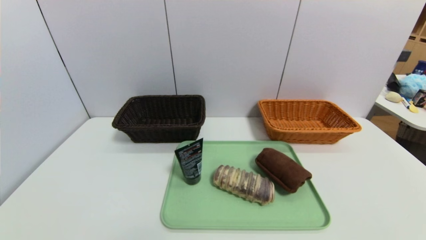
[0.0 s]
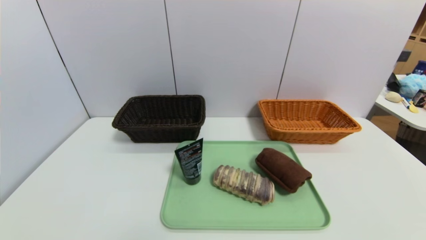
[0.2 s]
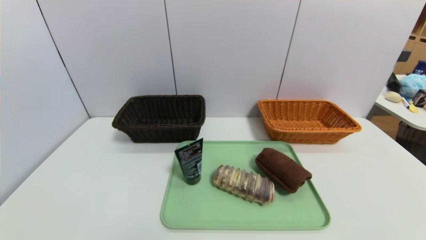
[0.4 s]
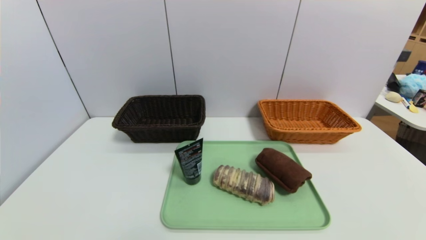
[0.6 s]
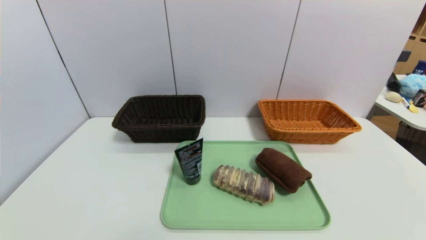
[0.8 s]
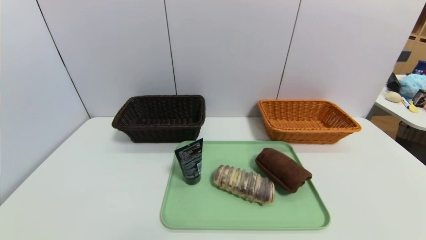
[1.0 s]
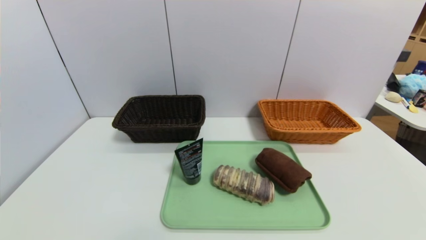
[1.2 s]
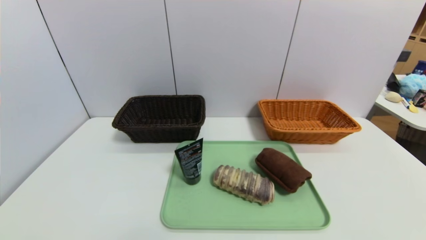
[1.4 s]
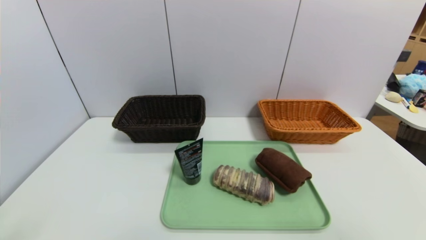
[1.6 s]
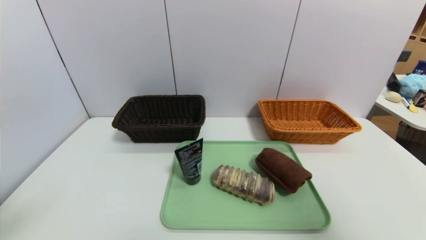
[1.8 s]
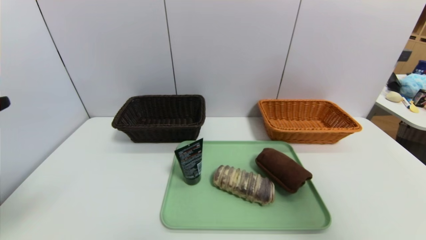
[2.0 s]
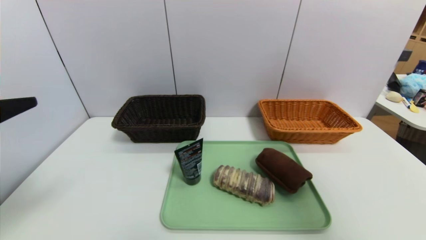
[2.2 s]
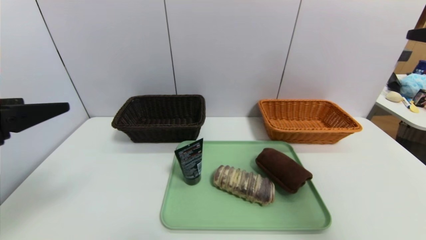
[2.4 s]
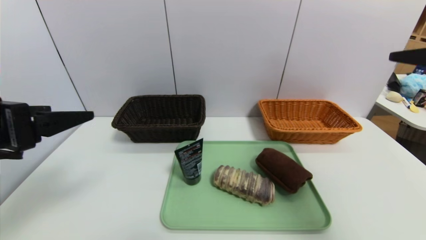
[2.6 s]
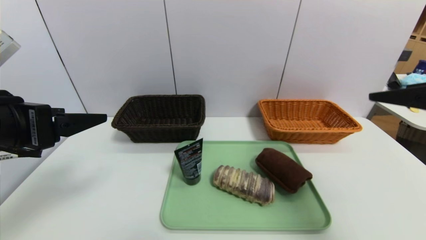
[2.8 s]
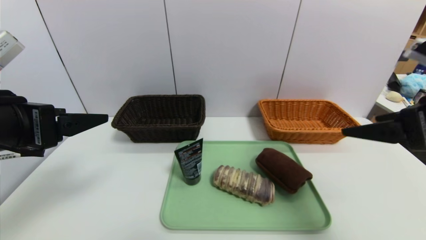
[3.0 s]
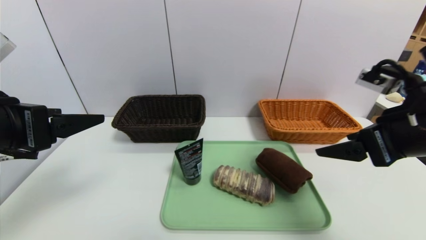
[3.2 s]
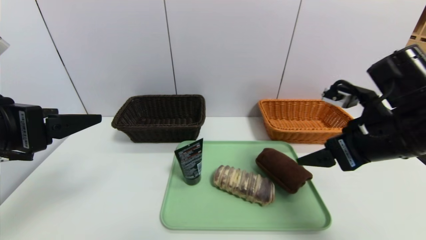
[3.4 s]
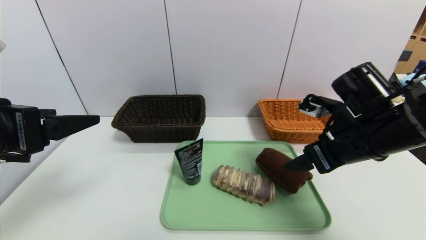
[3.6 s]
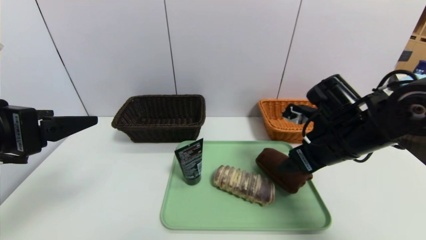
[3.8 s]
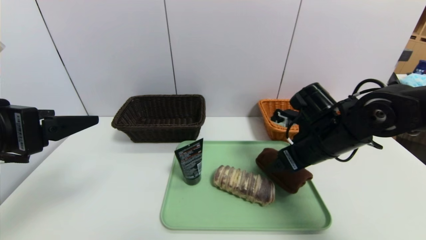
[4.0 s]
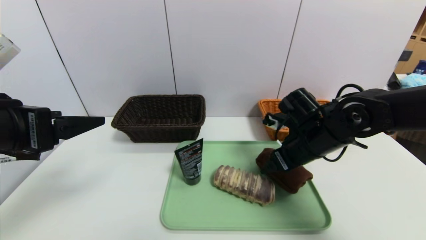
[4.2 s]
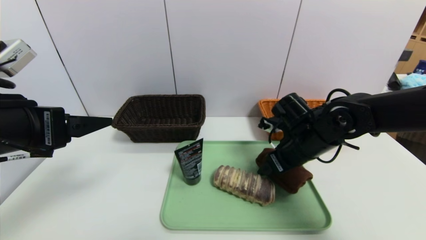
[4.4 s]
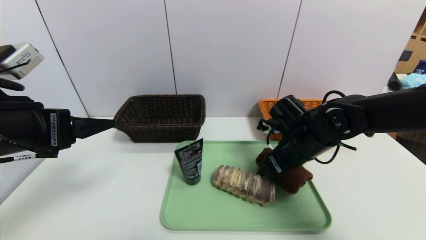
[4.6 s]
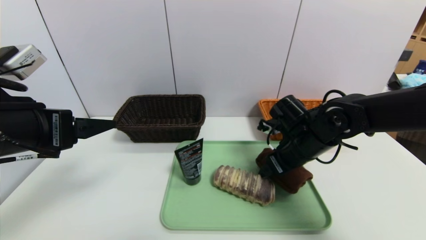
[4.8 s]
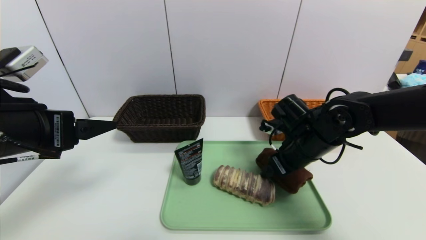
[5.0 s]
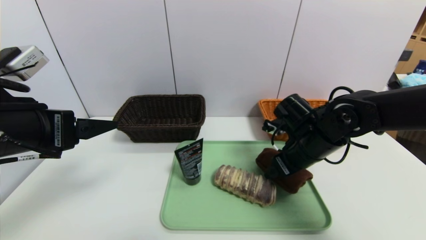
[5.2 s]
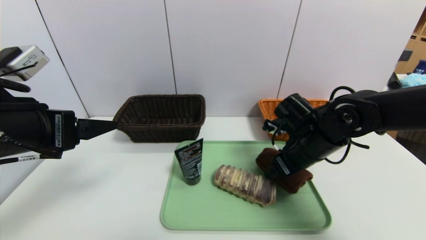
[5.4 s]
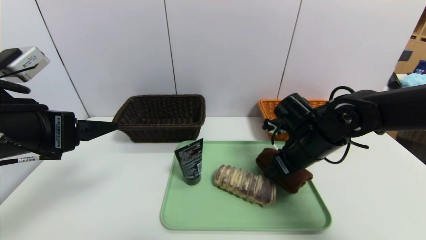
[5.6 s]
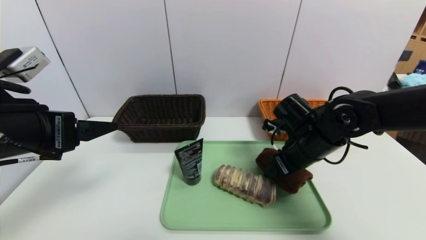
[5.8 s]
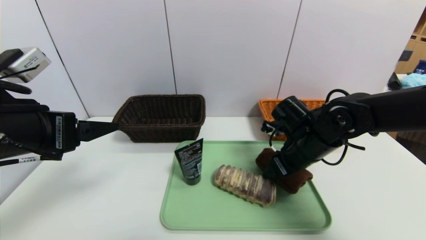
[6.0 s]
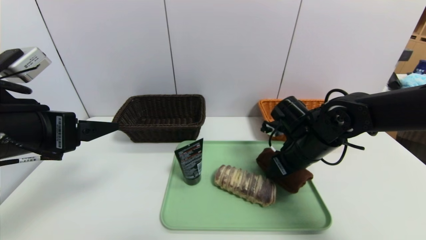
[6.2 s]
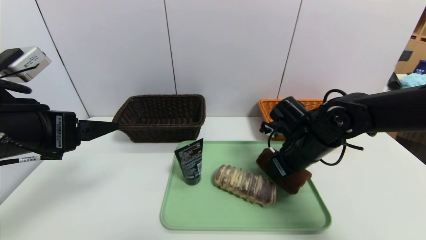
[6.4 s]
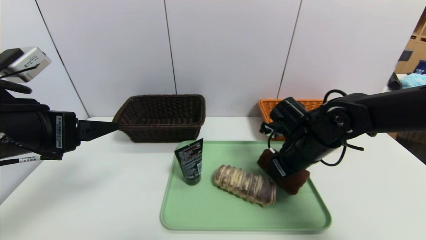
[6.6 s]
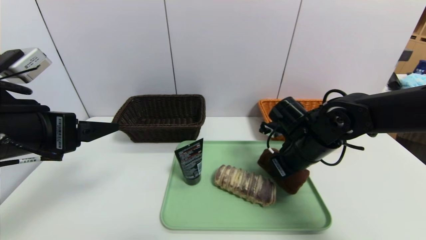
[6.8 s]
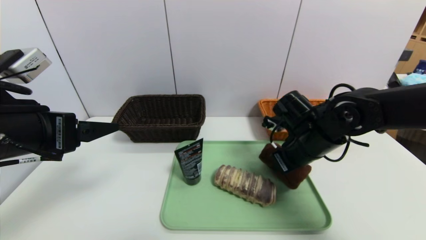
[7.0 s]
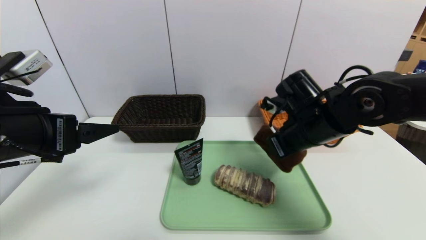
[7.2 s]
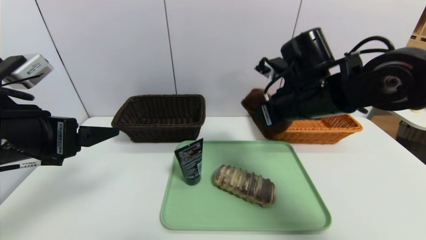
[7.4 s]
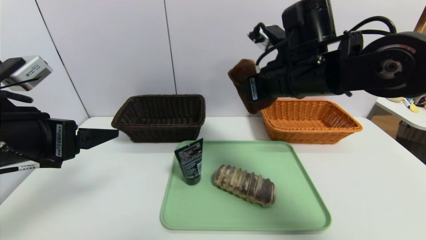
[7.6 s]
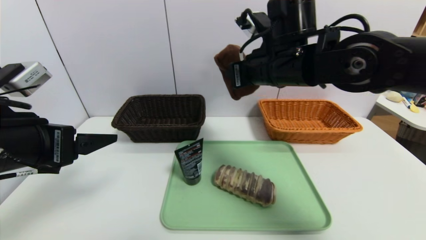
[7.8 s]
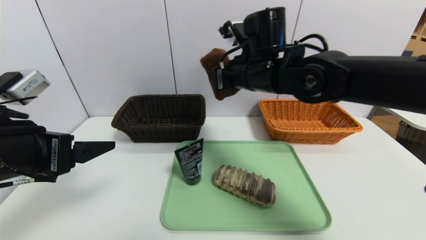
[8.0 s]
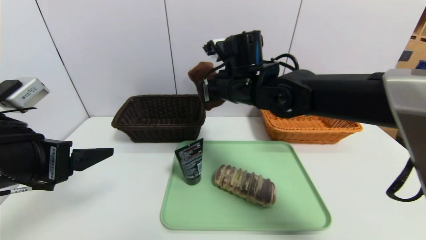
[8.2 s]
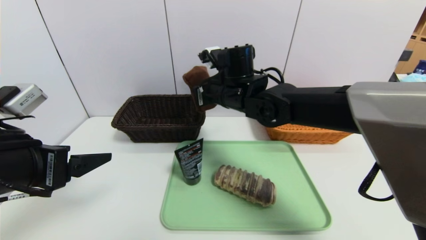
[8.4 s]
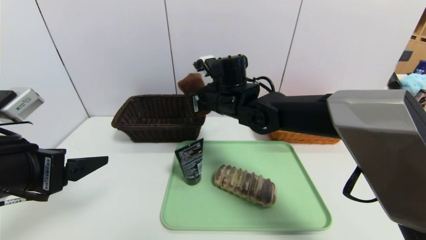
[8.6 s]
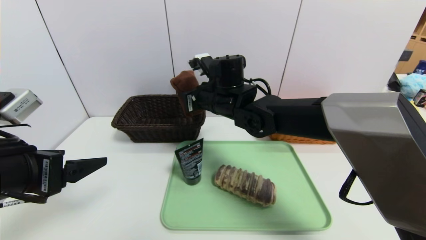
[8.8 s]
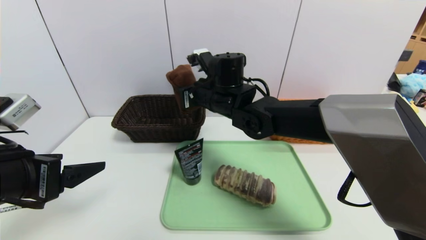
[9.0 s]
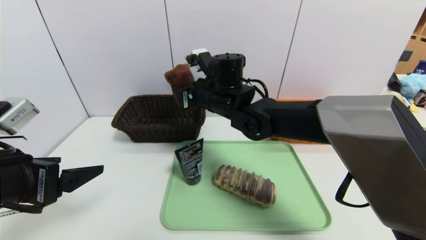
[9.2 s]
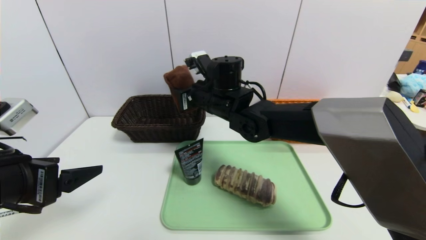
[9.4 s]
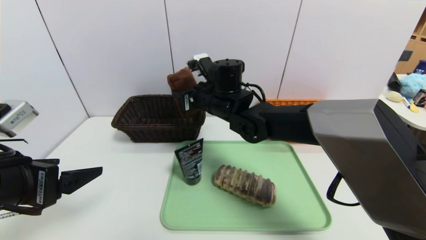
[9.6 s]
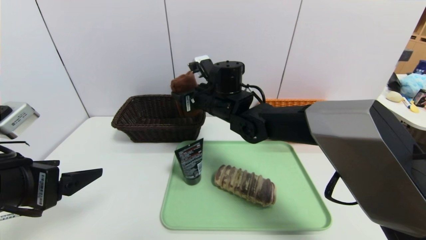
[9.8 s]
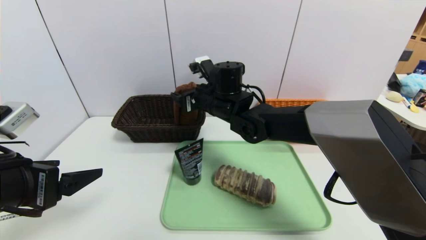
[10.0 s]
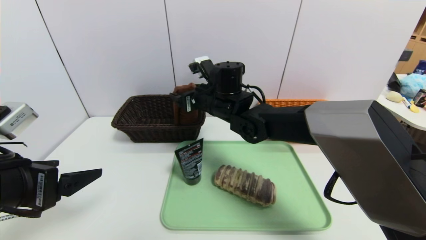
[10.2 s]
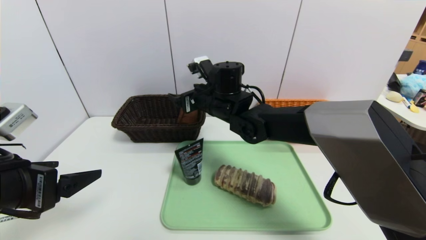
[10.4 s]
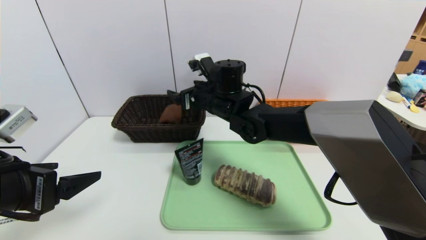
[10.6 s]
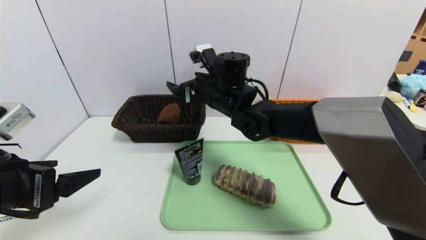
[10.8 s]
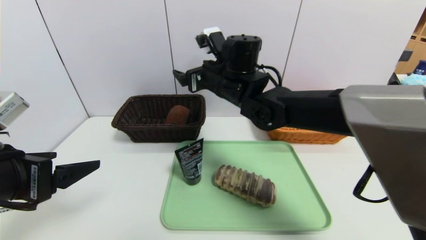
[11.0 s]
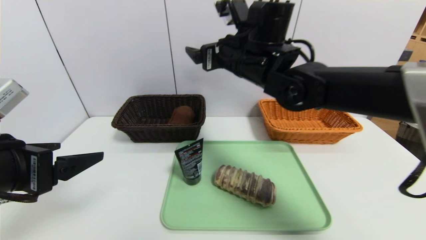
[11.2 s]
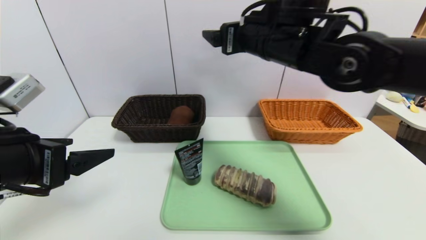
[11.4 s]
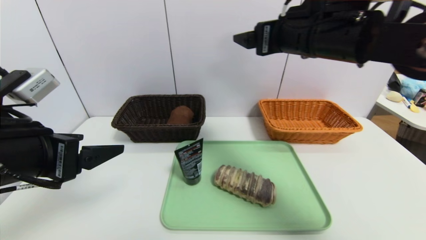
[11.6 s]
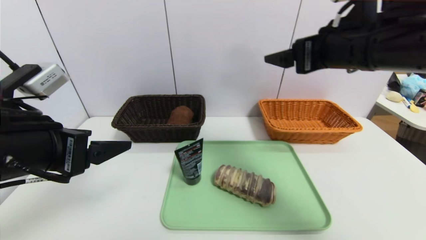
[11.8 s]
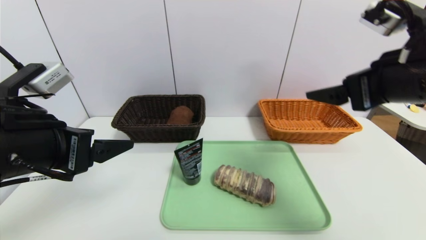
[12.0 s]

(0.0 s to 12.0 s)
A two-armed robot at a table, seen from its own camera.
Task of the whole recording: place the food in the right basket with the right gripper, and place the non food items in the left basket with the left gripper.
Step, 0.0 s - 11.0 s: Grasp the brown towel and put it in the left basket.
1.6 s - 3.0 s: The grippers both shift forward by roughly 15 cm.
3.0 s - 4.4 s: The right gripper heads downward, forward and to the left, covering approximately 25 cm.
4.4 s - 6.0 s: Both grippers stay about where they are.
6.0 s - 7.6 s: The right gripper goes about 15 cm upward, and closes up.
7.6 s - 9.0 s: The right gripper shifts approximately 15 cm to the left, downward and forward.
9.0 s - 10.4 s: The right gripper opens its fingers.
10.4 s - 12.0 s: The right gripper heads to the right, backward and upward, covering roughly 35 cm. Meanwhile the left gripper moves about 5 cm.

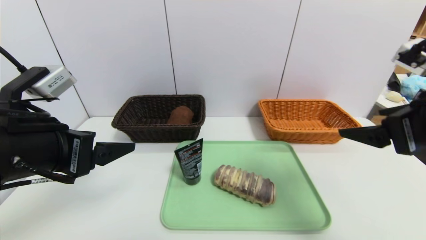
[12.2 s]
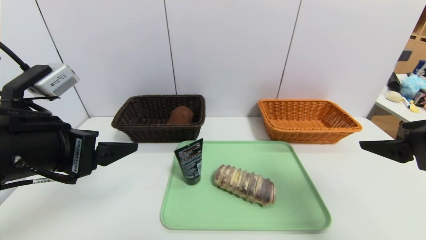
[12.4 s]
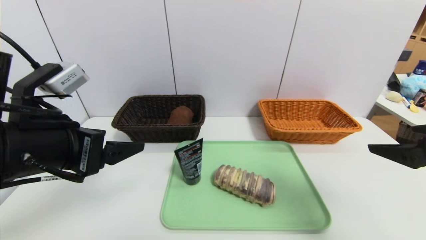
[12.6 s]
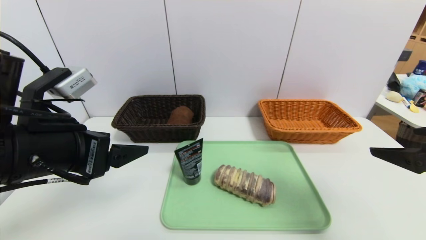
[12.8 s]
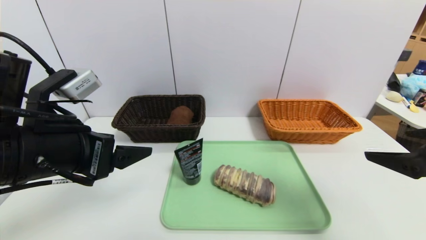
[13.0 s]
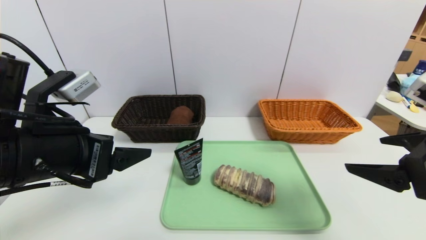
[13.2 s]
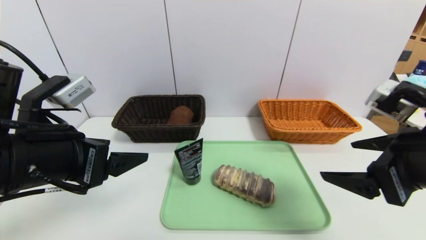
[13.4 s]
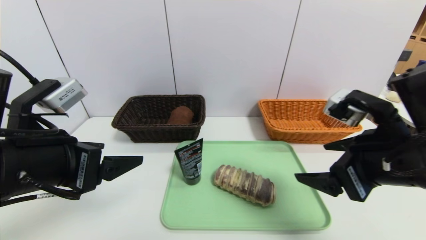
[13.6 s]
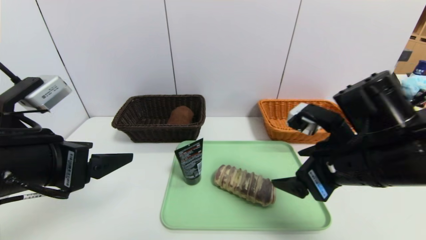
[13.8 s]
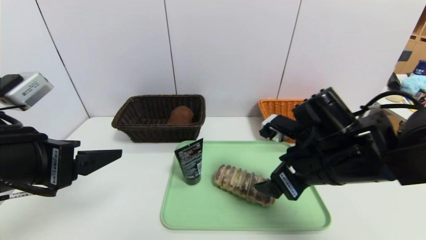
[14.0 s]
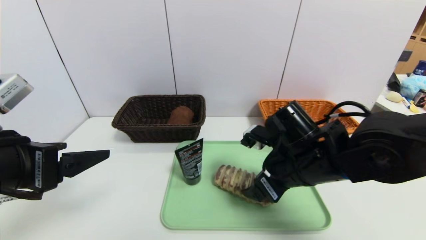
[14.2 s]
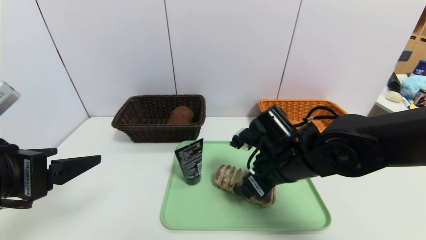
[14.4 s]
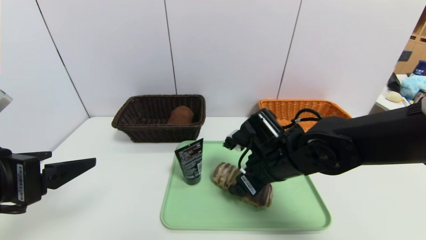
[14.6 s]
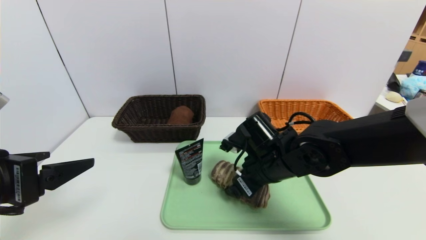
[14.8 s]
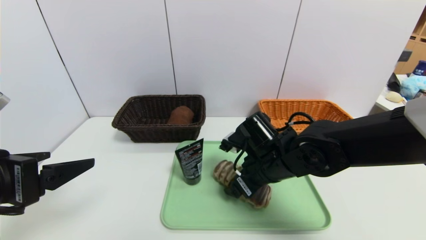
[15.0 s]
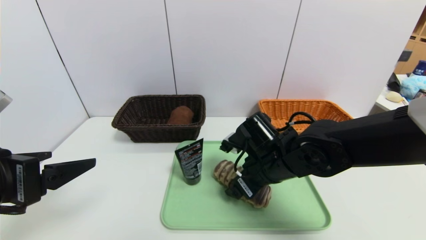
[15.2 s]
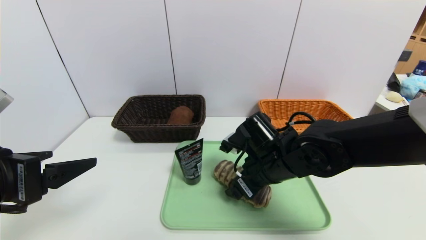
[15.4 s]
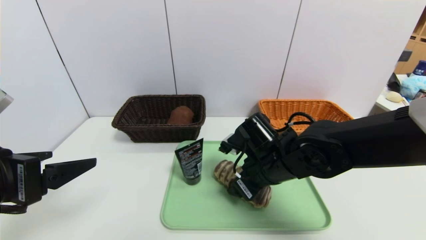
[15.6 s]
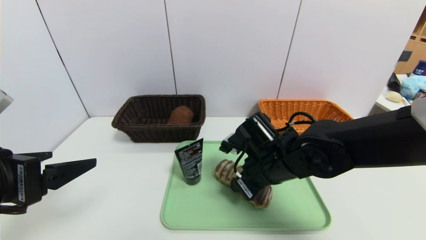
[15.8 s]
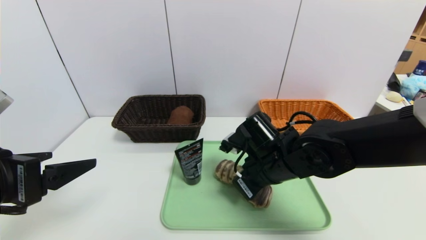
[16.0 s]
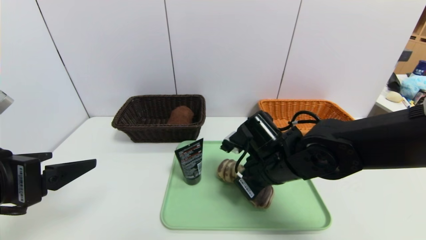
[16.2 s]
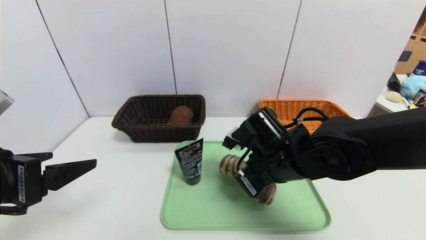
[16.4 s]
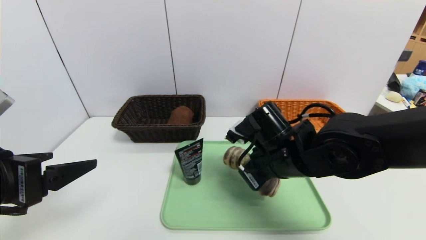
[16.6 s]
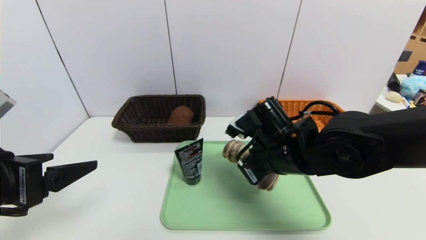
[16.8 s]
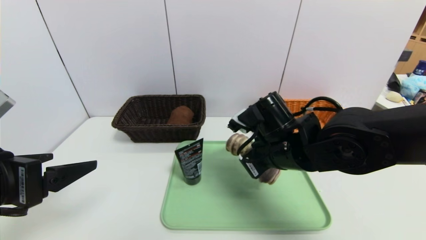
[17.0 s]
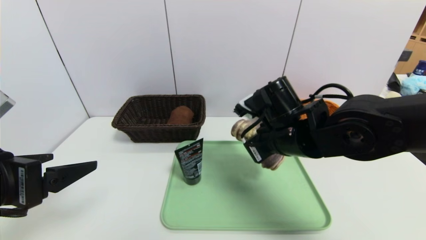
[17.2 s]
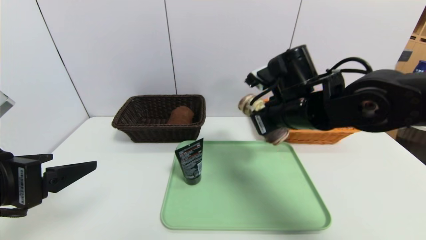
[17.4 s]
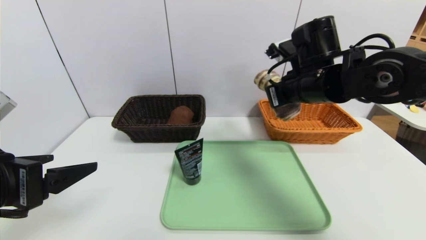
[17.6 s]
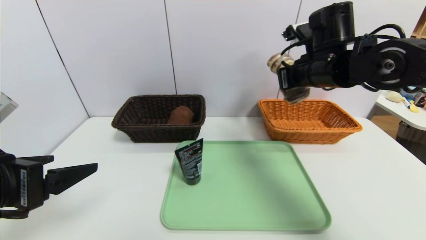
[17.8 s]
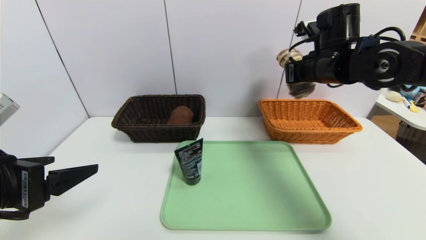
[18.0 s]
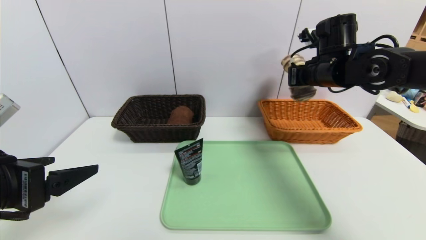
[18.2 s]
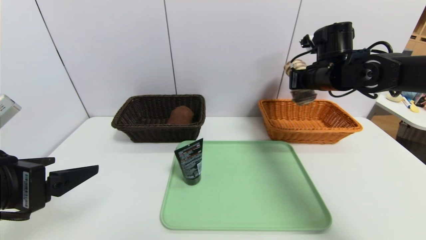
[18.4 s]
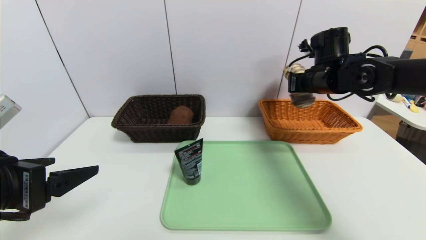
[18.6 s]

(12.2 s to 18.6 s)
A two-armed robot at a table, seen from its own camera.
Task of the whole recording: place the food in the right basket with the right gripper, and place the non food items in the left basket with the left gripper.
12.2 s - 13.8 s: The right gripper is displaced to the left and downward by roughly 10 cm.
13.8 s - 15.4 s: The right gripper moves downward, to the left and forward, roughly 15 cm.
15.4 s - 17.0 s: The right gripper closes its fingers.
17.0 s - 18.6 s: The right gripper heads forward, to the right and upward, covering roughly 20 cm.
